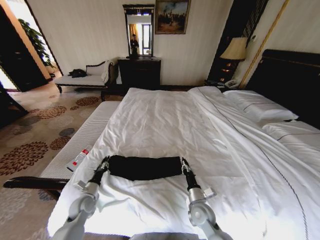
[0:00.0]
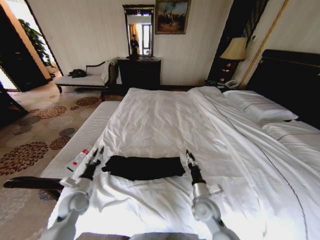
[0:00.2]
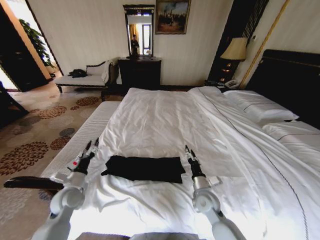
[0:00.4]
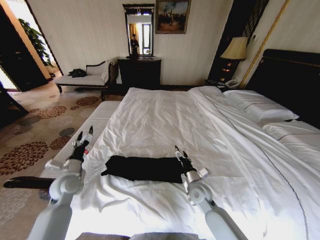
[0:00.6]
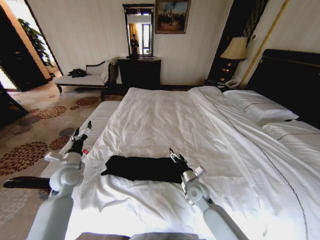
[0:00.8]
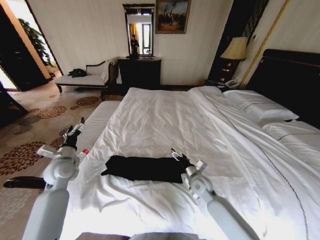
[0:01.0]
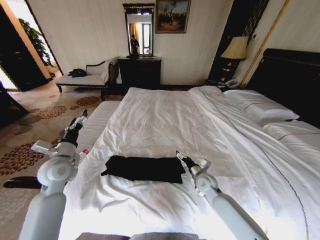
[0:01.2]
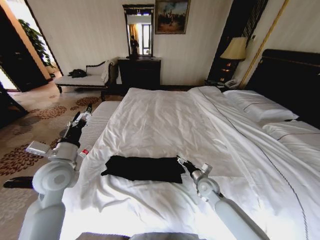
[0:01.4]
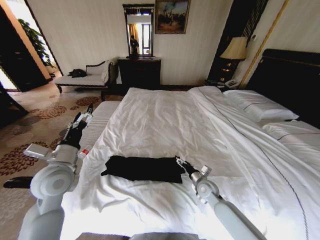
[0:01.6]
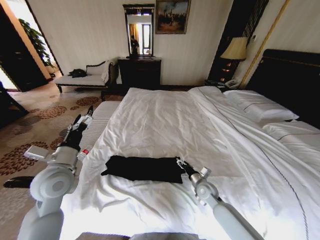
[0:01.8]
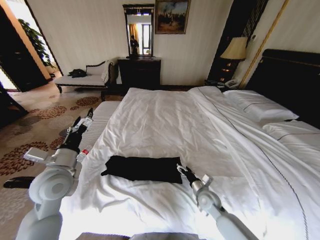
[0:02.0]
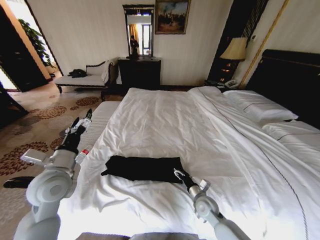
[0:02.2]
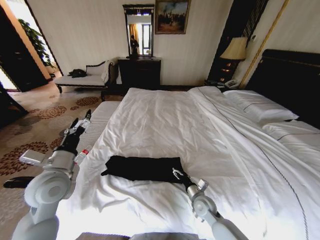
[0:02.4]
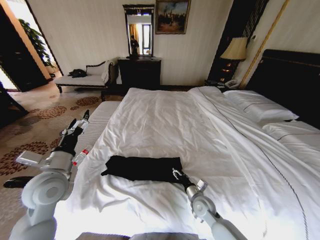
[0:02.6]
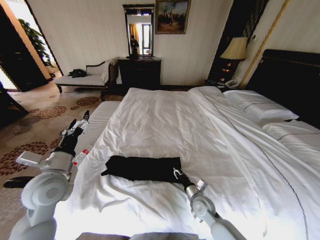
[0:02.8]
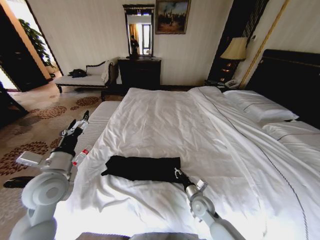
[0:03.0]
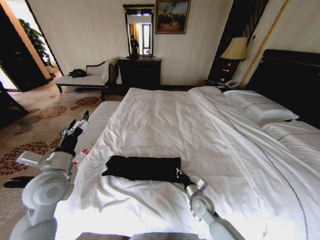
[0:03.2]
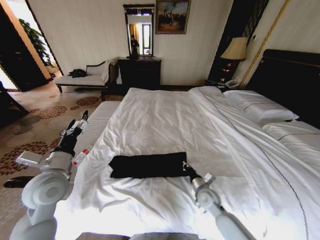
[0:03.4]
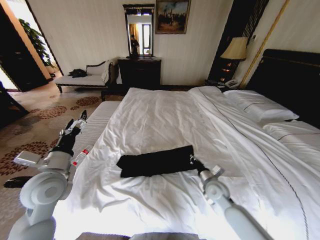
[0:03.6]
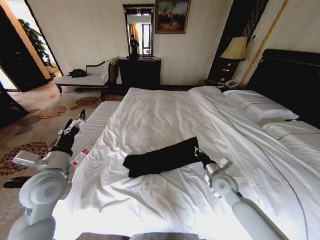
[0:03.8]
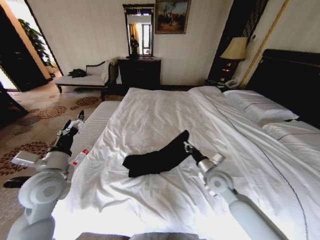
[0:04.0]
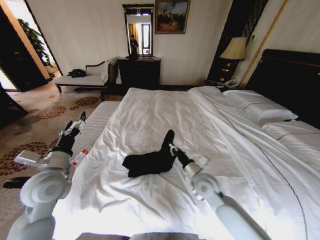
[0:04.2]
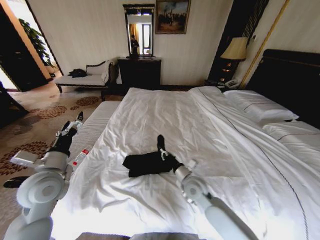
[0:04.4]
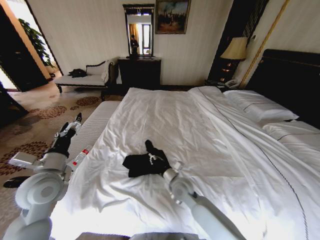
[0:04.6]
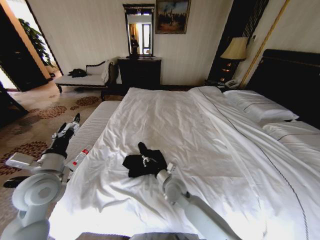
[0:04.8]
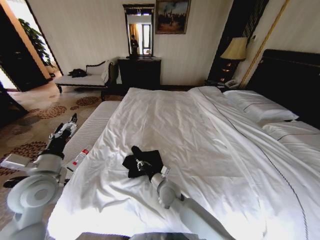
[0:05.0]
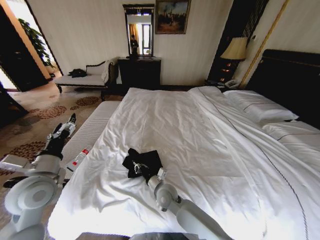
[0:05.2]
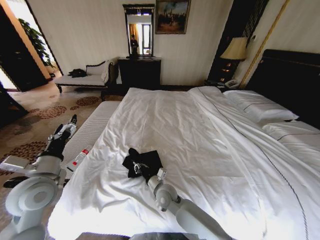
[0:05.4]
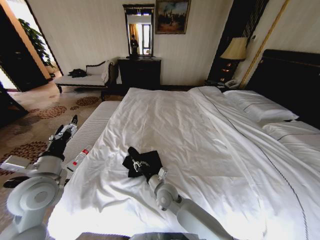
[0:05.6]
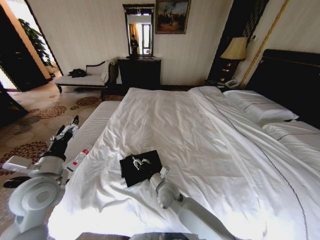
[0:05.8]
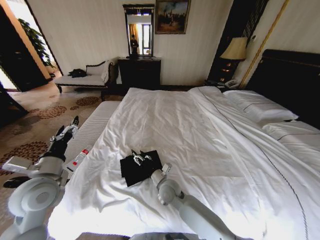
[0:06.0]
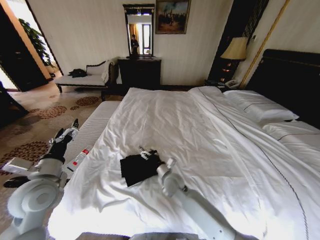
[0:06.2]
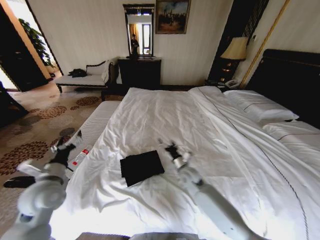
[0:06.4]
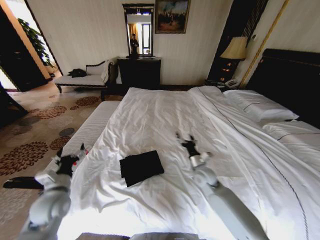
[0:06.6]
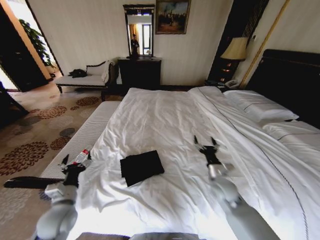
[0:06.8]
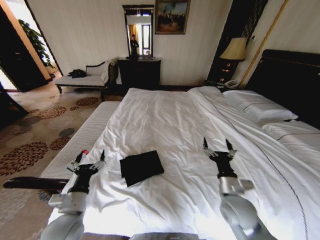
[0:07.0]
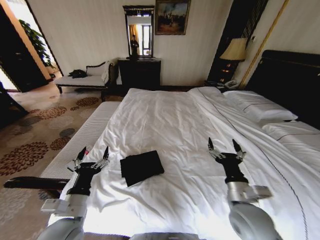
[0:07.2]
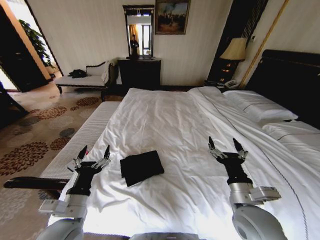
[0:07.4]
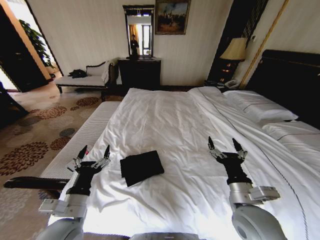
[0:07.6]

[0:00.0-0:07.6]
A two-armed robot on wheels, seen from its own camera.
Task of the whole recording: Fold the clothes on the bed.
0:00.0 to 0:01.6: The right gripper goes about 10 cm forward and to the right, and opens up; the left gripper is displaced upward by about 25 cm, and opens up.
0:01.6 to 0:03.0: The right gripper shifts about 5 cm backward, and closes its fingers.
0:03.0 to 0:04.6: The right gripper goes roughly 10 cm upward and to the left.
0:04.6 to 0:06.0: The right gripper shifts roughly 5 cm to the left, and opens up.
0:06.0 to 0:07.6: The right gripper goes about 25 cm to the right, backward and upward. The left gripper travels backward, to the right and downward by some 15 cm.
